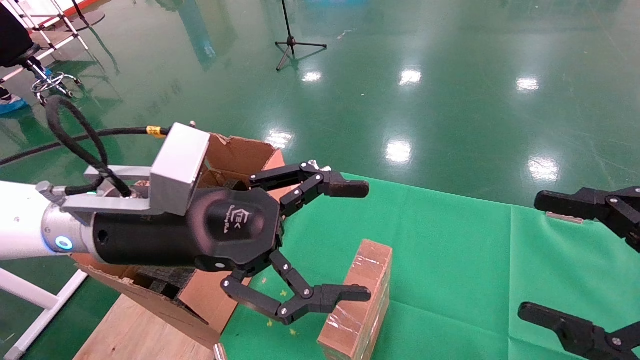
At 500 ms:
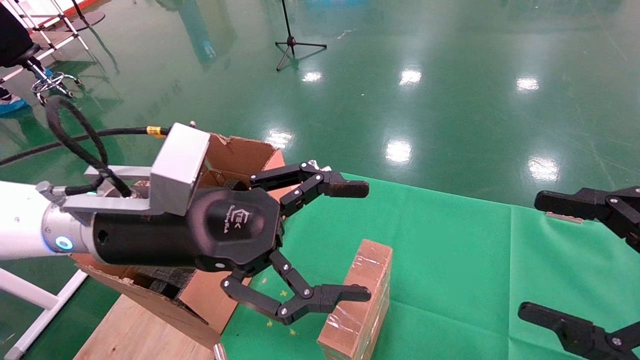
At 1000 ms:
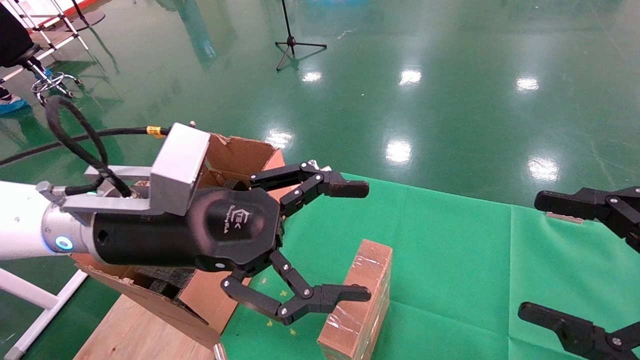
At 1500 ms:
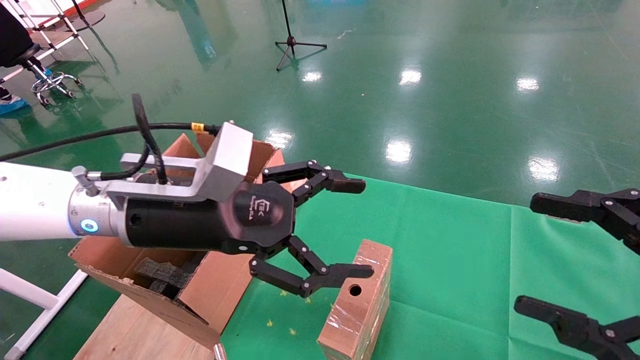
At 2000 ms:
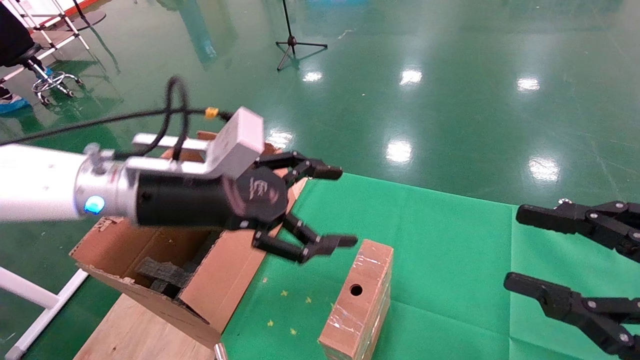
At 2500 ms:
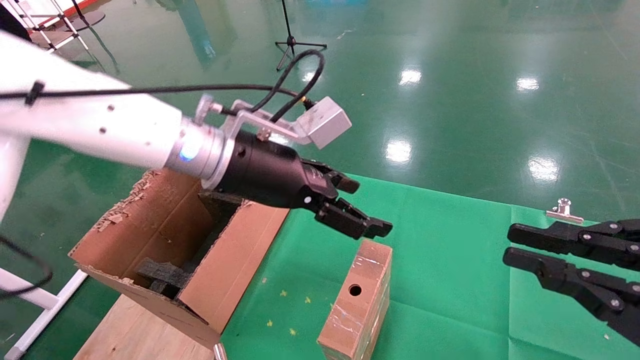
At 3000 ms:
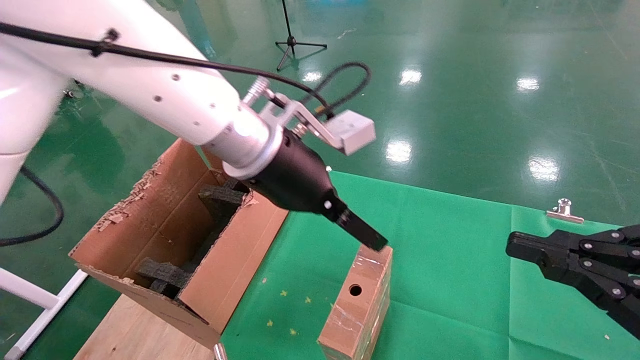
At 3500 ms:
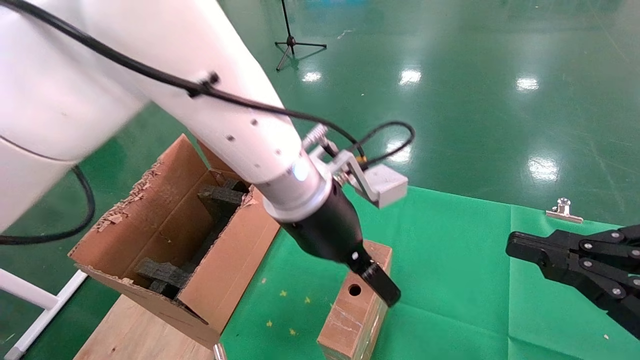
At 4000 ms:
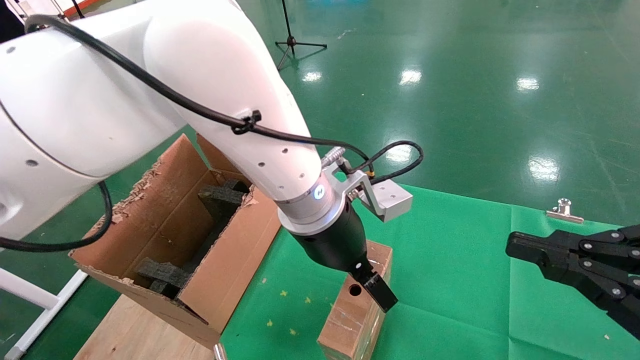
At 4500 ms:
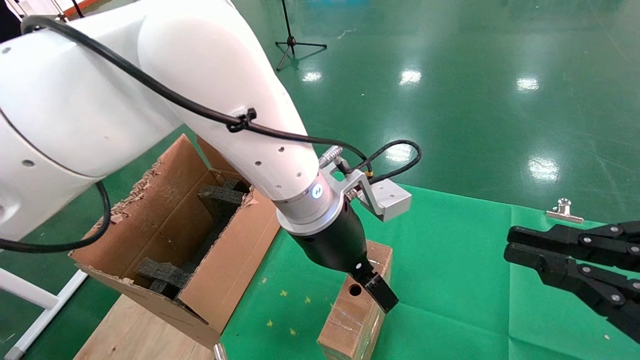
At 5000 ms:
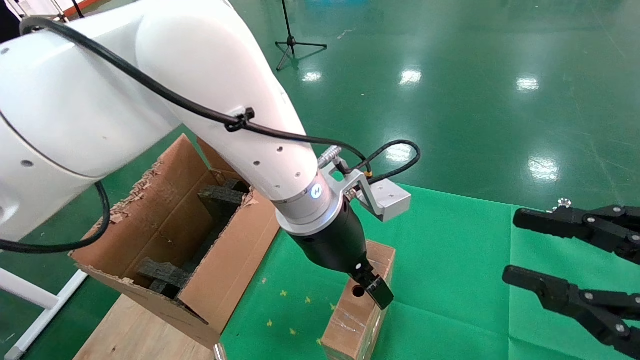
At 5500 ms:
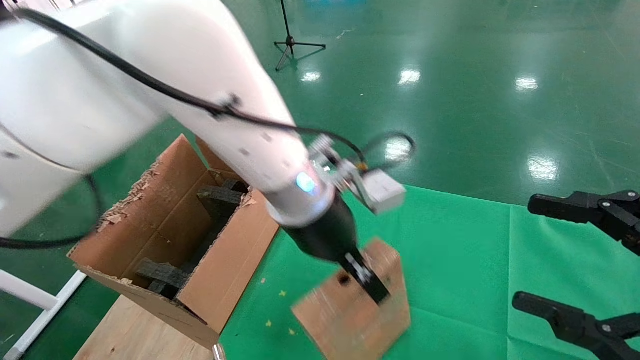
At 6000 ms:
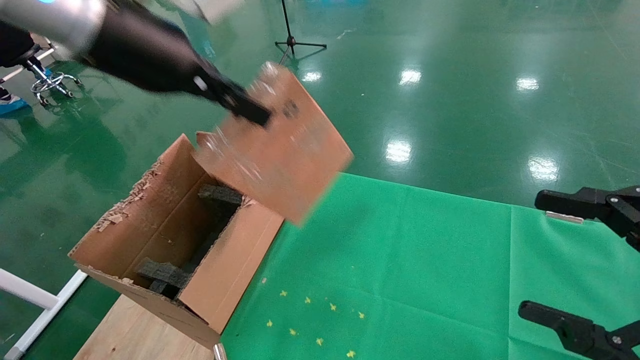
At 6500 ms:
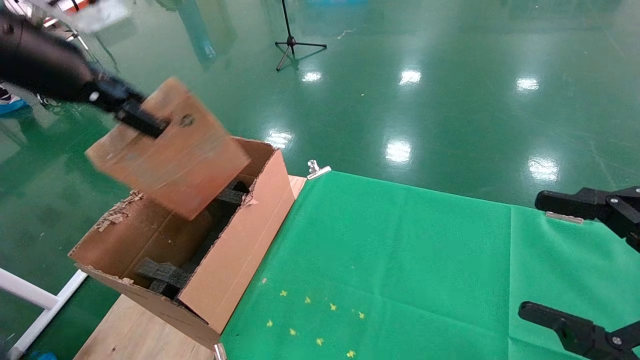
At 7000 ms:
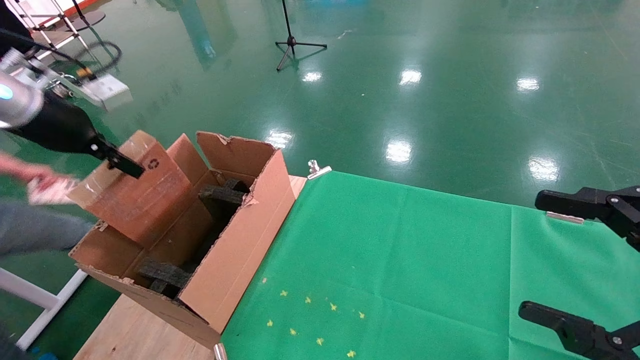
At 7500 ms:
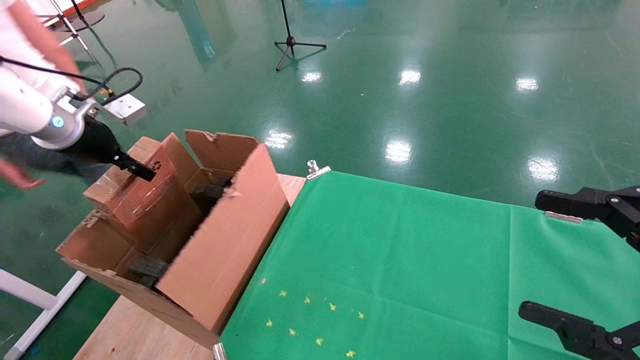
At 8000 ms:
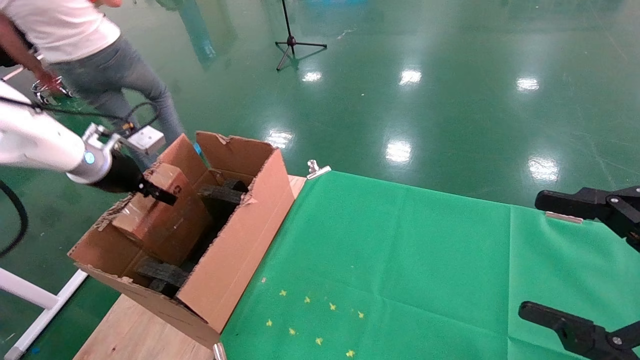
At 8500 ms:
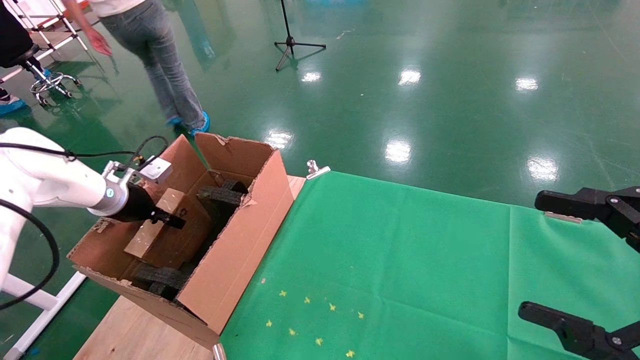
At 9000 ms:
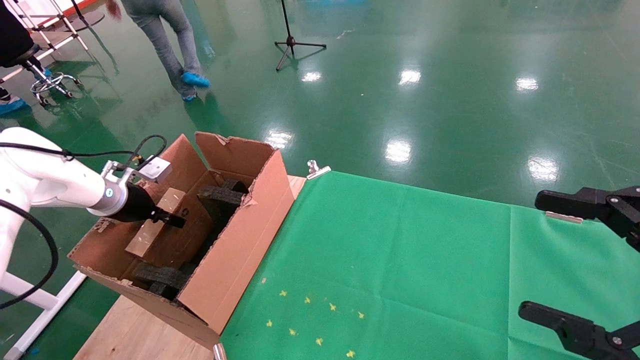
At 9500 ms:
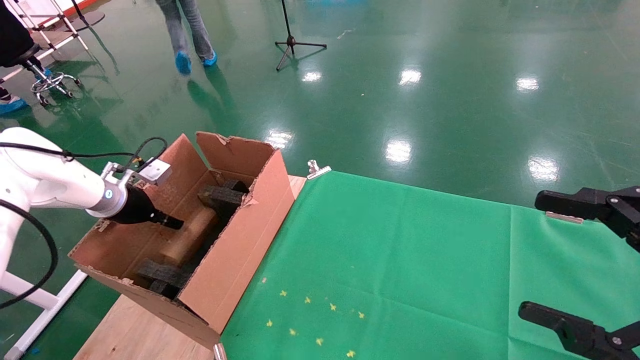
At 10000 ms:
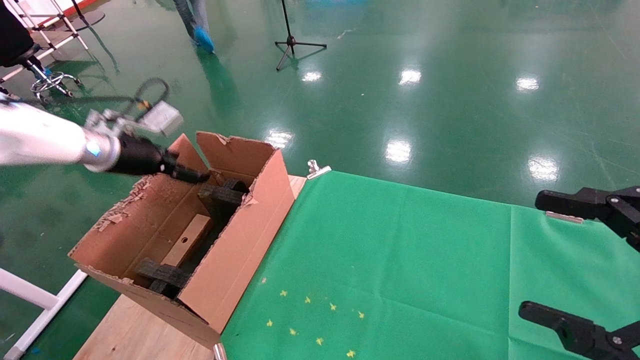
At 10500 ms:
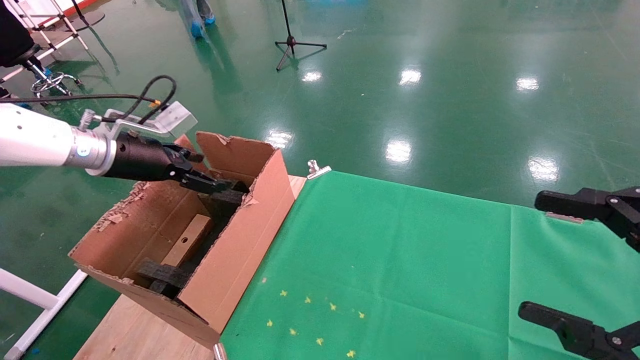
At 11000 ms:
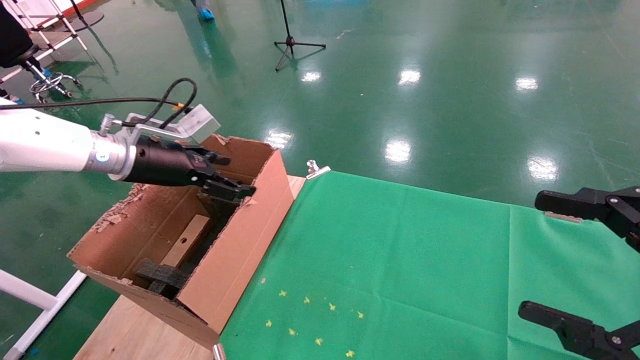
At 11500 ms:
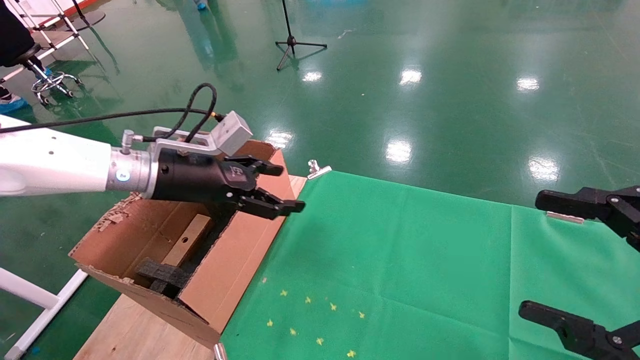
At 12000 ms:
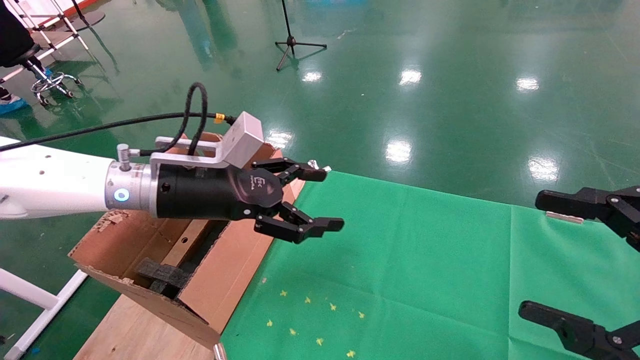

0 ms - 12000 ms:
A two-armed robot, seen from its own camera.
Task of the whole recording: using a robotic arm to pick up a cardboard box and palace it the carton.
Step, 1500 ms - 5000 ms: Pick up the mouse and the power cord paper box.
Step, 5500 ms - 10000 ms: Place the mouse and the power cord paper box into the container.
2000 ms - 4000 ms: The left gripper travels to the right by roughly 15 cm; the right gripper closes its fingers.
4000 ms - 6000 ms: The left gripper shifts roughly 25 cm to the left and upward, and closes. Meanwhile the right gripper opens its fingers.
6000 ms - 8000 ms: The left gripper goes approximately 30 cm to the left, downward and forward.
8000 ms - 10000 ms: The left gripper reaches approximately 10 cm downward, then returns, and opens its fingers.
10000 ms - 12000 ms: The left gripper goes approximately 25 cm to the right and backward.

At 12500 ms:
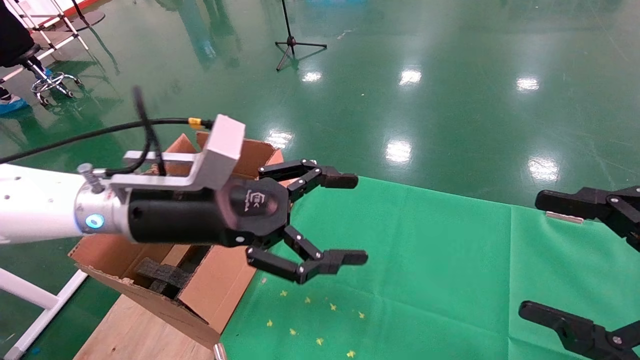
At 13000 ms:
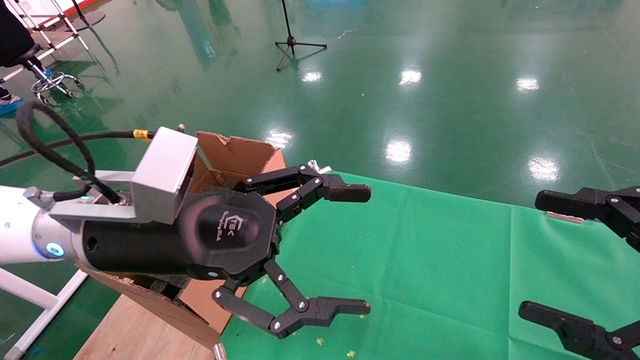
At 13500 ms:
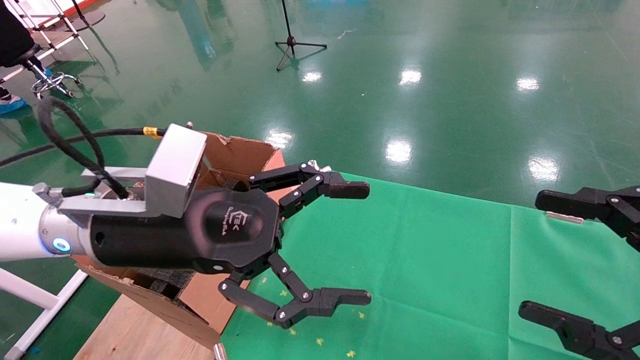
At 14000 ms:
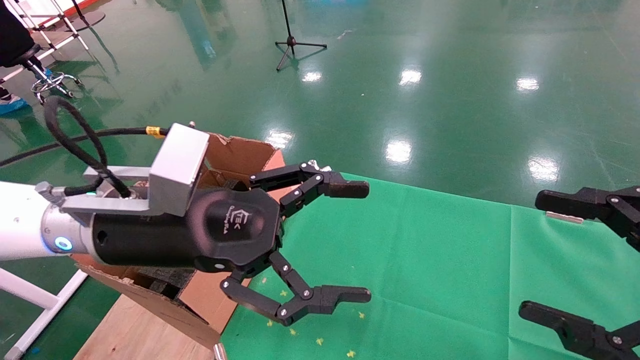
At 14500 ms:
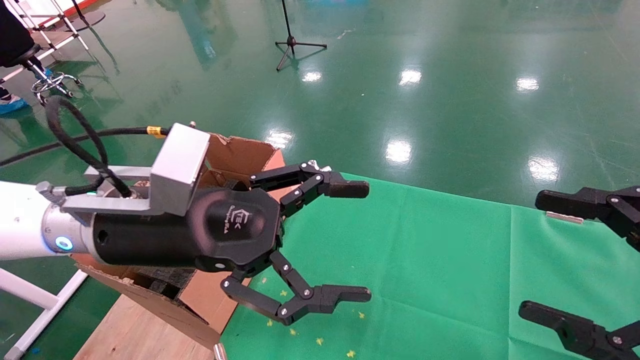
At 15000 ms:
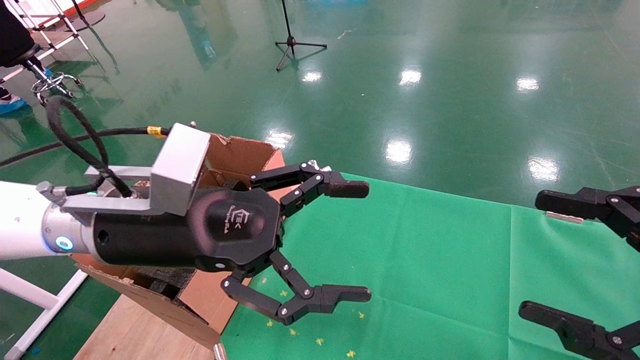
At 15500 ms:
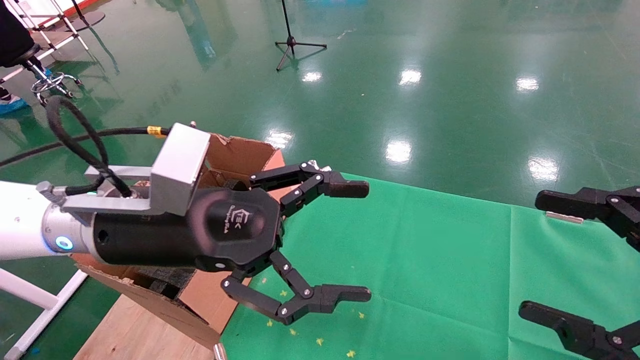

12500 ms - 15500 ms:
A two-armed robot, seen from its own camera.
Task of the whole recording: using a robotic arm to pick up a cardboard box and palace it the carton.
12500 ms - 14000 ms: The grippers stay close to where they were, moving slightly.
14000 ms - 15500 ms: Both grippers stay put.
